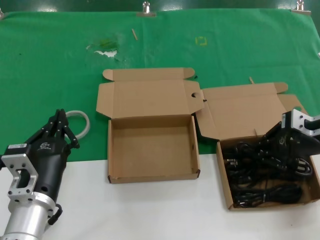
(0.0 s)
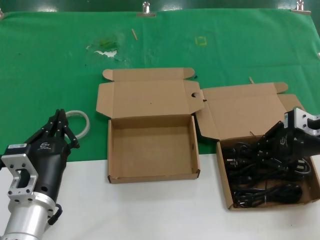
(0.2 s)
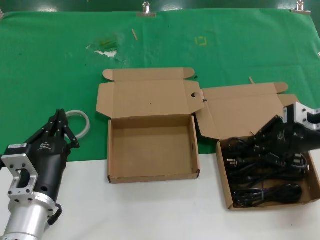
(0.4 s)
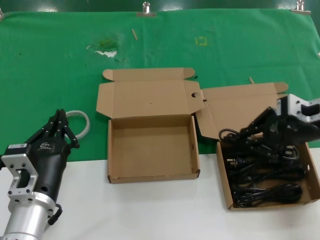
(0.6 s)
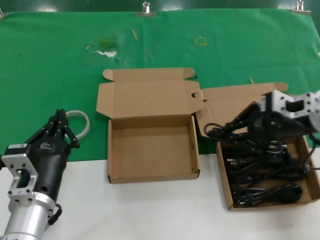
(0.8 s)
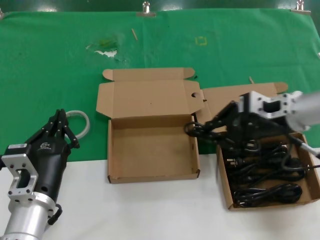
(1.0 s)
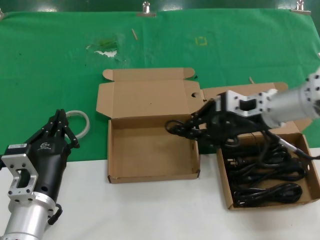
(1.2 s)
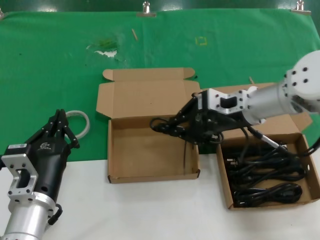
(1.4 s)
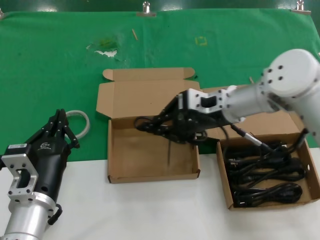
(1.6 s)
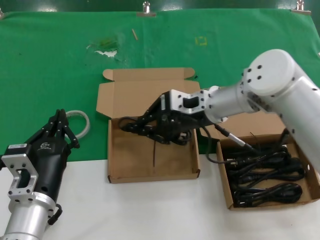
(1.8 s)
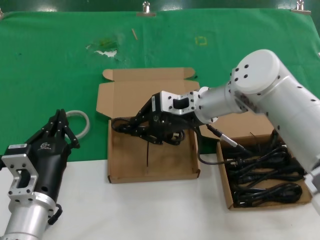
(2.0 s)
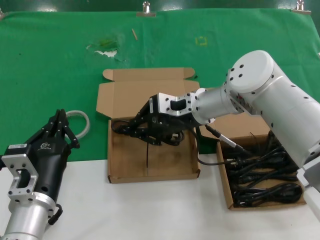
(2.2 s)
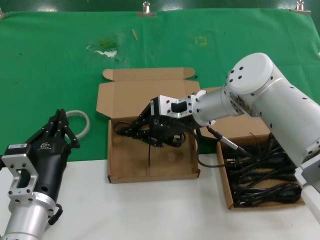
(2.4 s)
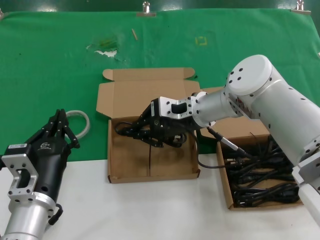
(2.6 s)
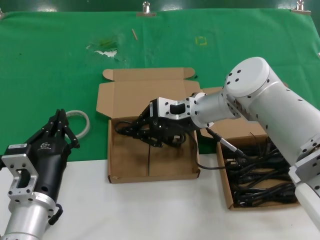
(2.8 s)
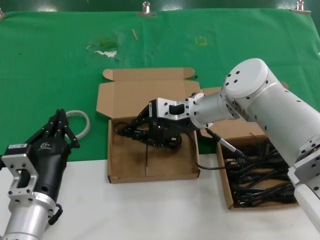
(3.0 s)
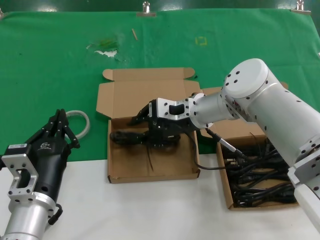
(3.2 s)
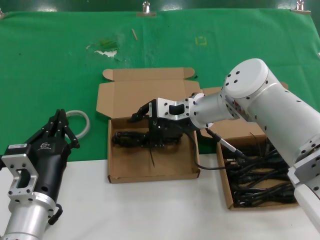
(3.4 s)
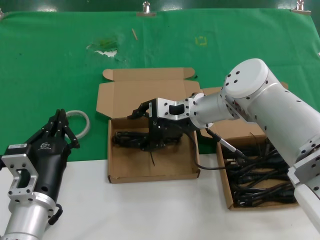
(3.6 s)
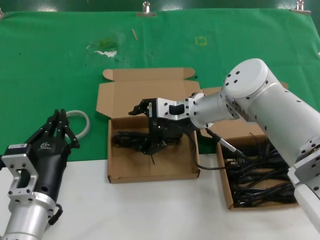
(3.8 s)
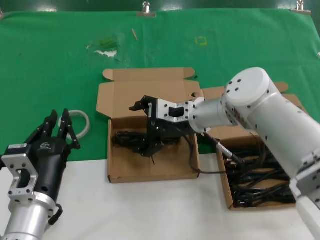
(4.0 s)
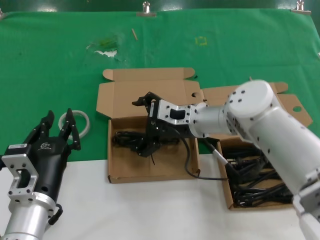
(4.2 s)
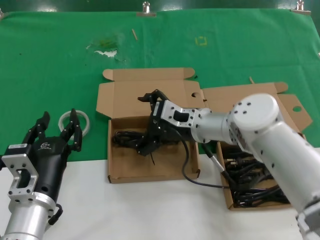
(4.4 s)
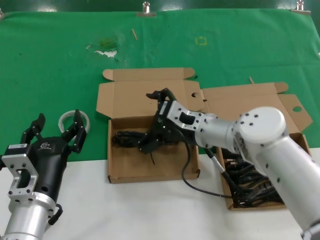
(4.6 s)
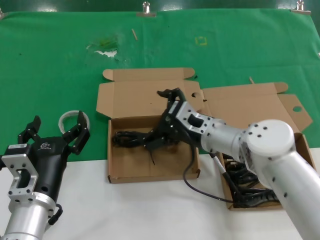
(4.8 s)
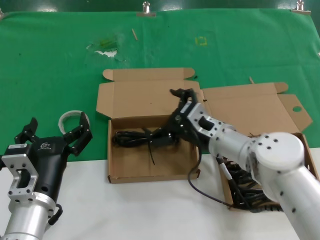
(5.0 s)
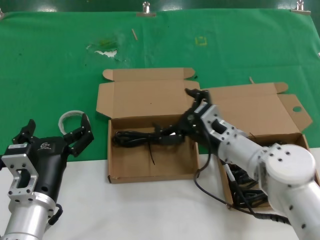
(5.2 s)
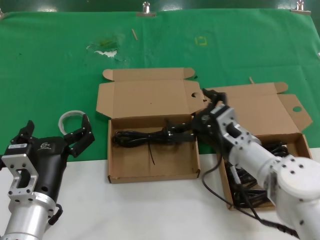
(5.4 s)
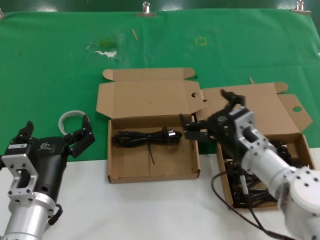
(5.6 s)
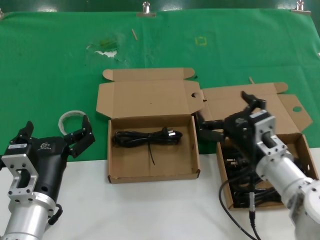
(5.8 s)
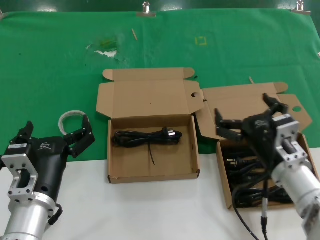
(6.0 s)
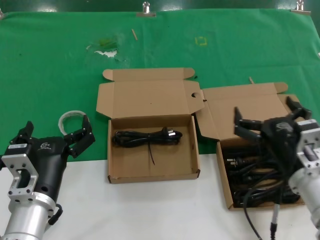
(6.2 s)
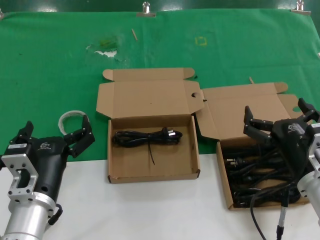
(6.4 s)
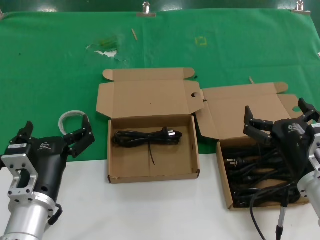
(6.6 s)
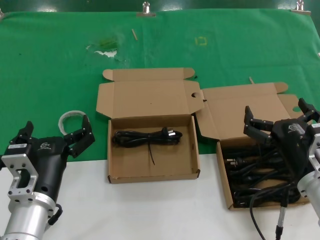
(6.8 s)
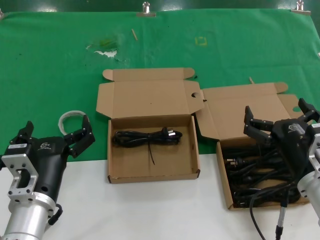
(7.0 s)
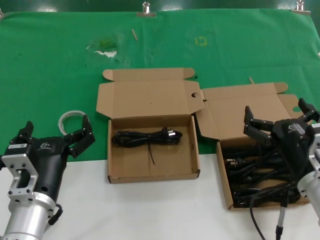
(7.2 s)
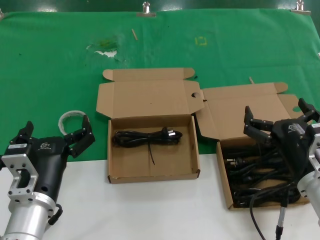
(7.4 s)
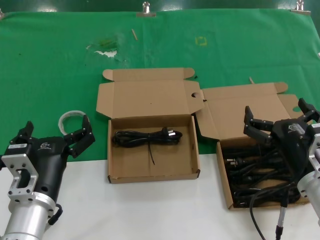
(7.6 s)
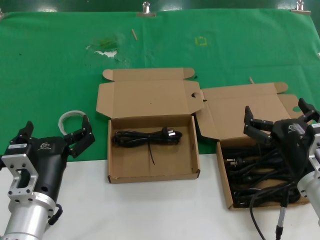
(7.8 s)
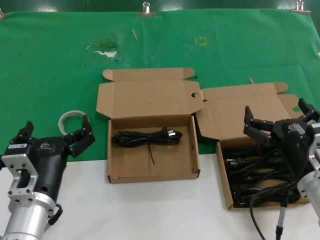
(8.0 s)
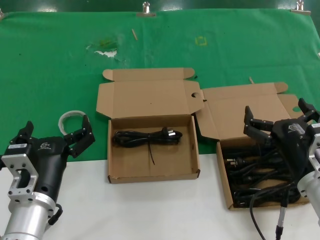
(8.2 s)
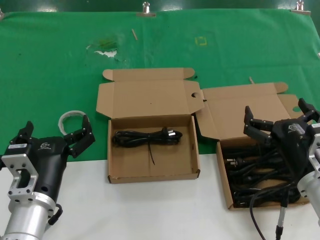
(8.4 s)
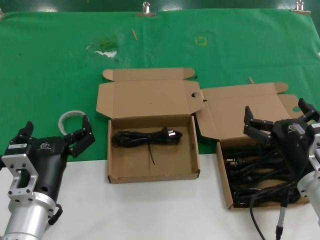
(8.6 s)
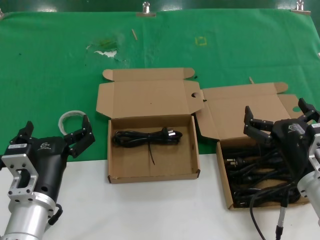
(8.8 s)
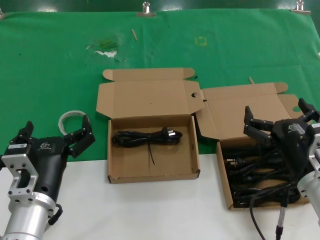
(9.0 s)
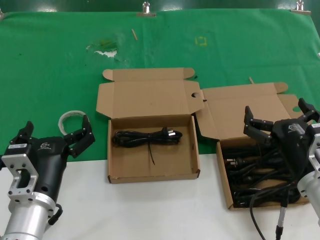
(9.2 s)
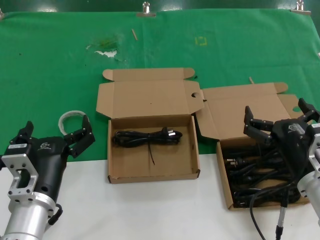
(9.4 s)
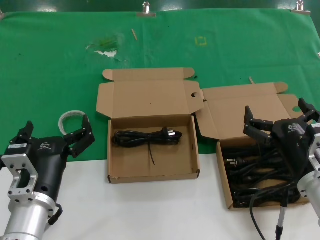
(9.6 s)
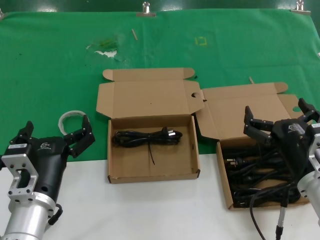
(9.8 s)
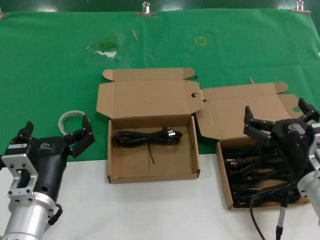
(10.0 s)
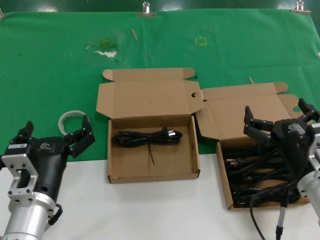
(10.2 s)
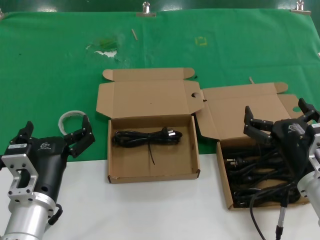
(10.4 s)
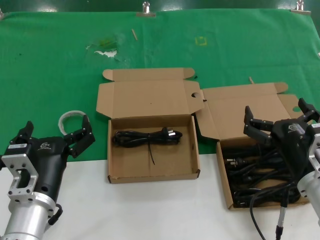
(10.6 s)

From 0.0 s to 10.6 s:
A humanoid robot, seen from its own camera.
Task of the whole recording: take the parts from the box containing them and put them into an empty box.
Step, from 0.0 s to 3.4 s: Place the data cable in the another box.
From 0.0 s to 1.6 s: The right hand heads to the left, covering some 20 cm.
From 1.6 s to 3.0 s: The right hand is displaced to the left by roughly 5 cm.
From 3.0 s to 4.6 s: The right hand shifts about 5 cm downward.
From 4.6 s to 6.0 s: The right hand goes roughly 15 cm backward and to the right.
From 6.0 s to 7.6 s: The right hand shifts by approximately 5 cm.
From 7.6 s to 10.6 s: Both hands stay put.

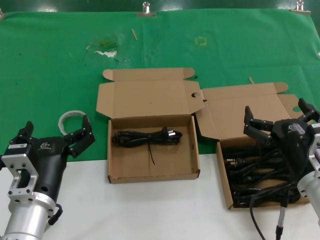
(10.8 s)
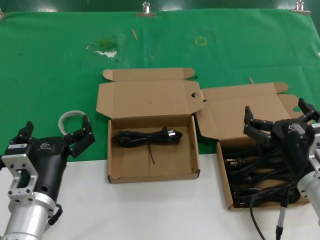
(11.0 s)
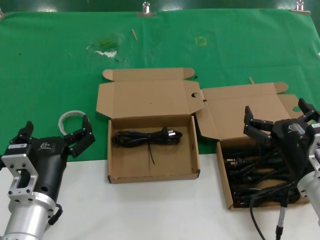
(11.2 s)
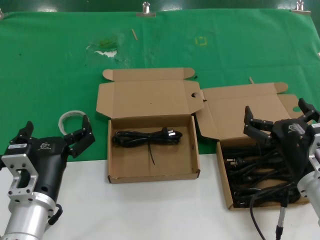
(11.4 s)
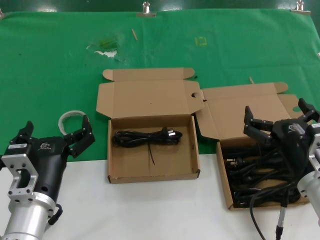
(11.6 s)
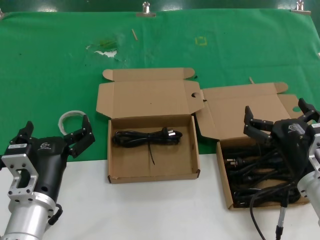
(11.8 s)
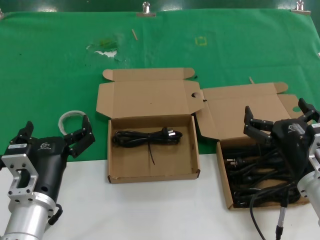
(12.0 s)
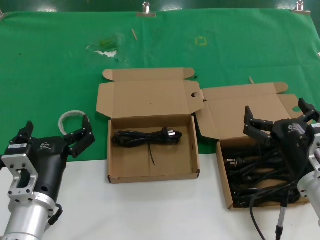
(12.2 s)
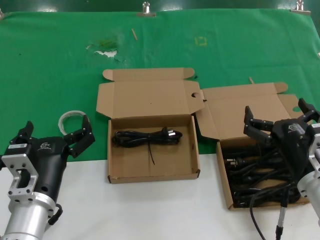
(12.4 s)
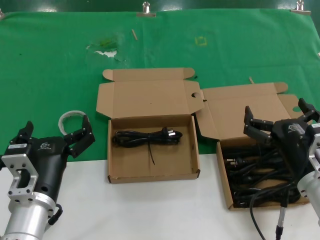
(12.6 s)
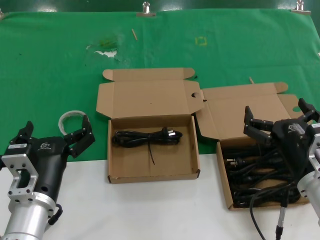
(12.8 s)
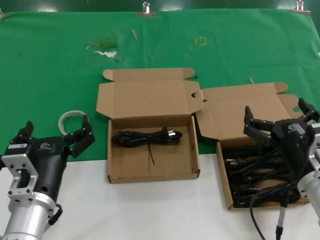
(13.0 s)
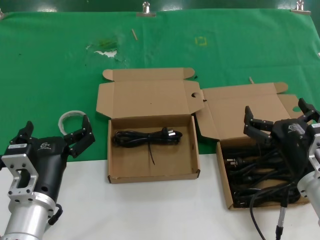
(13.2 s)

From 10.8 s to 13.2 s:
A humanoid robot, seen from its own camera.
Task of the whole recording: take the parts from the box containing them and put them into an empty box.
From 10.8 s to 13.2 s: Neither hand changes place.
